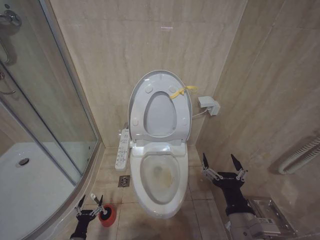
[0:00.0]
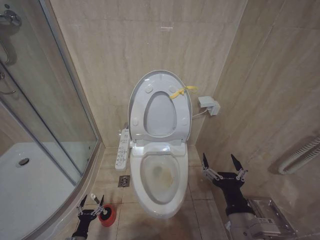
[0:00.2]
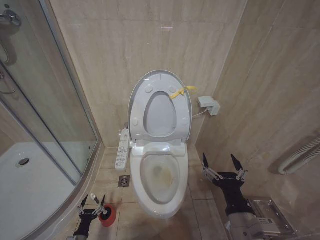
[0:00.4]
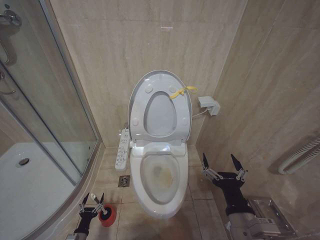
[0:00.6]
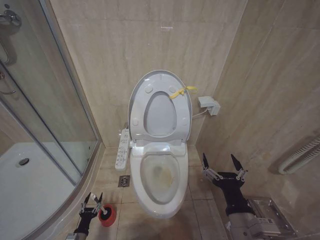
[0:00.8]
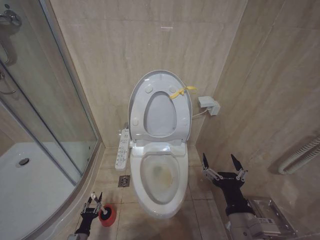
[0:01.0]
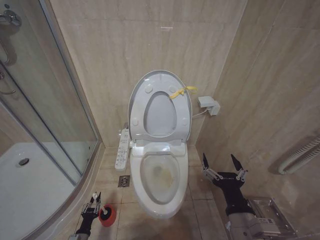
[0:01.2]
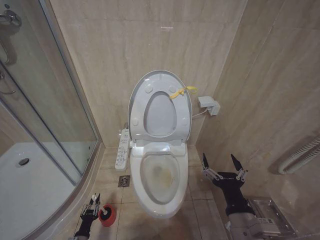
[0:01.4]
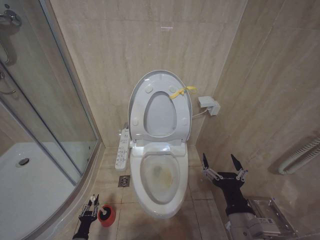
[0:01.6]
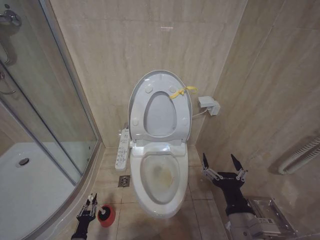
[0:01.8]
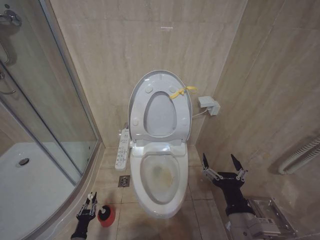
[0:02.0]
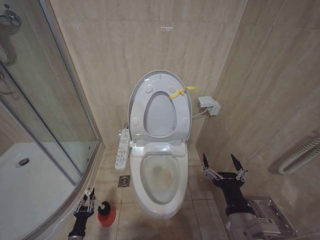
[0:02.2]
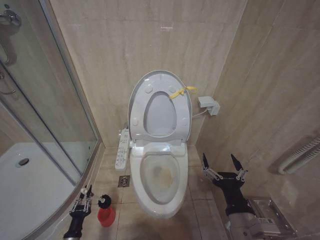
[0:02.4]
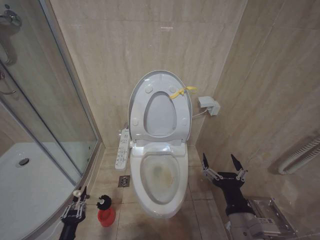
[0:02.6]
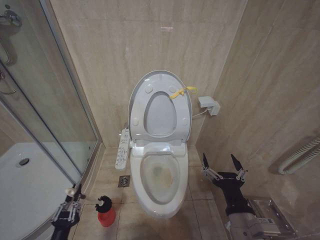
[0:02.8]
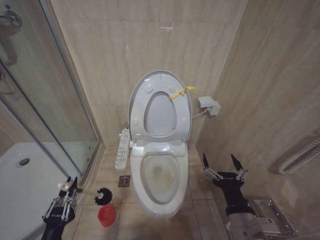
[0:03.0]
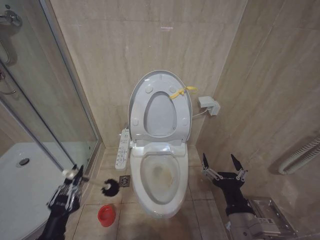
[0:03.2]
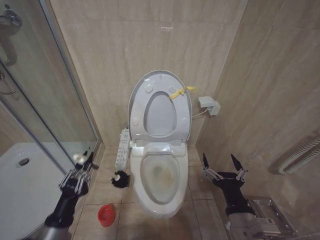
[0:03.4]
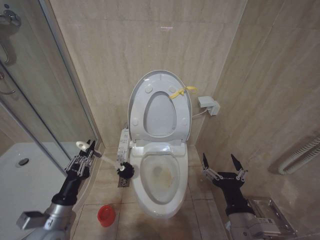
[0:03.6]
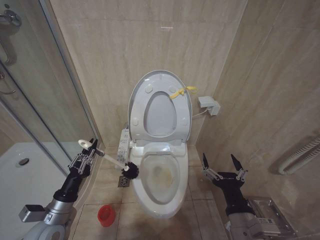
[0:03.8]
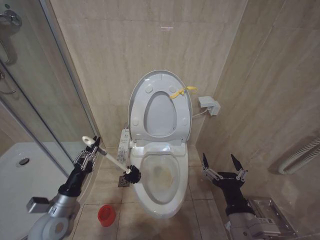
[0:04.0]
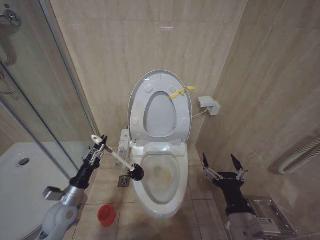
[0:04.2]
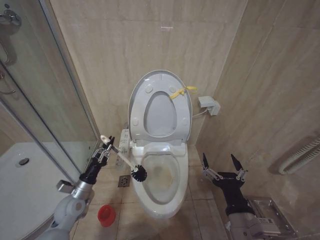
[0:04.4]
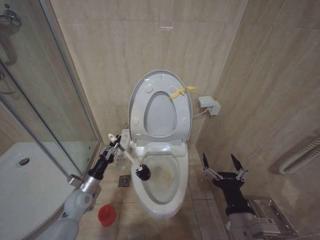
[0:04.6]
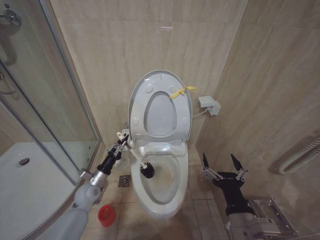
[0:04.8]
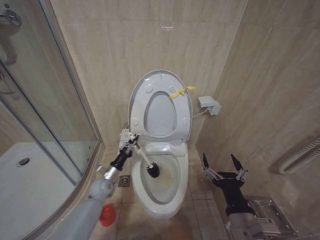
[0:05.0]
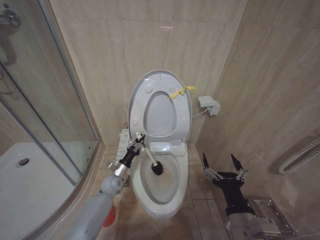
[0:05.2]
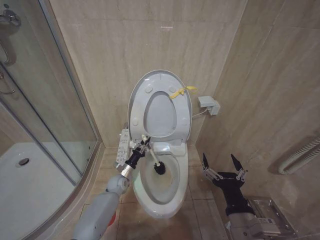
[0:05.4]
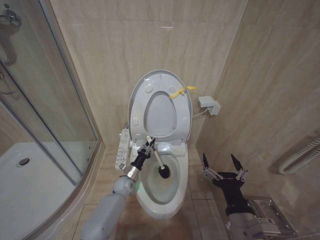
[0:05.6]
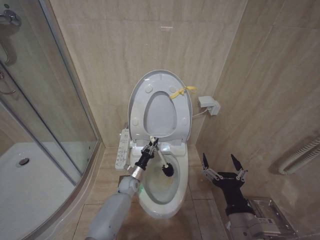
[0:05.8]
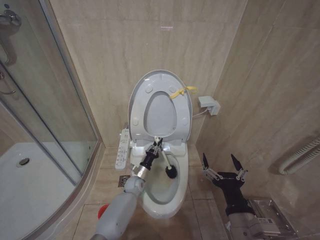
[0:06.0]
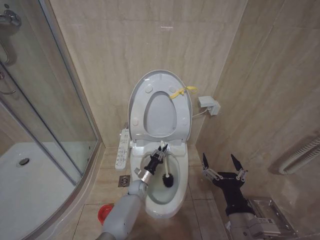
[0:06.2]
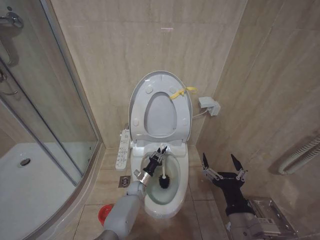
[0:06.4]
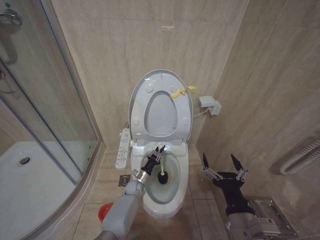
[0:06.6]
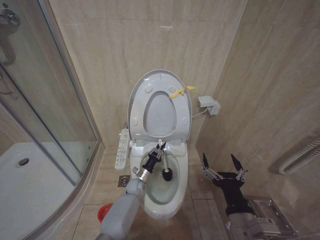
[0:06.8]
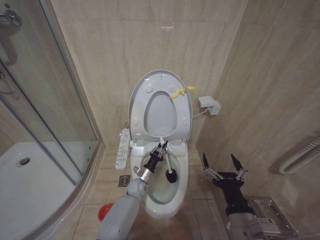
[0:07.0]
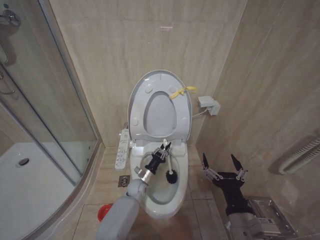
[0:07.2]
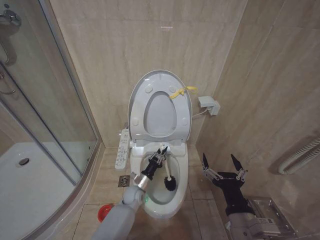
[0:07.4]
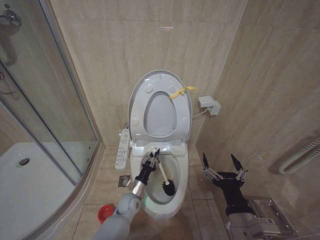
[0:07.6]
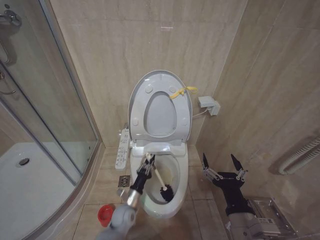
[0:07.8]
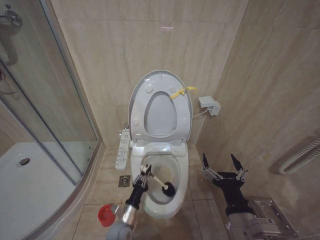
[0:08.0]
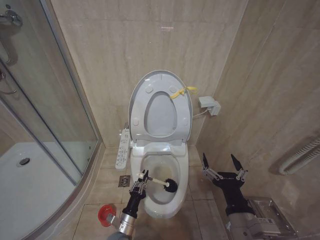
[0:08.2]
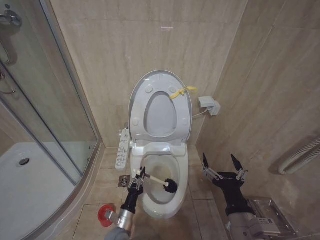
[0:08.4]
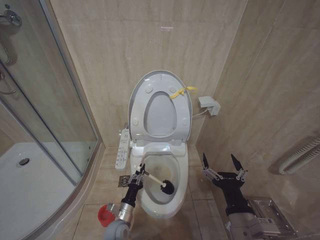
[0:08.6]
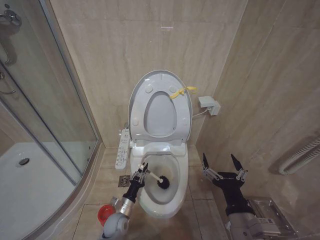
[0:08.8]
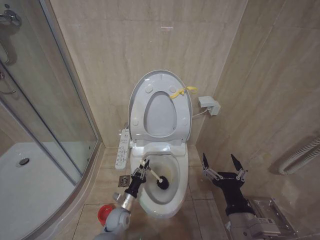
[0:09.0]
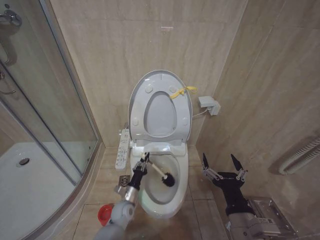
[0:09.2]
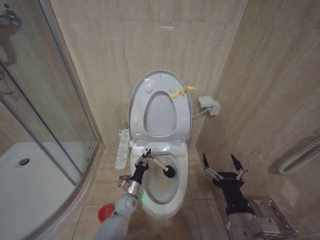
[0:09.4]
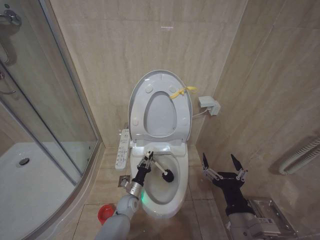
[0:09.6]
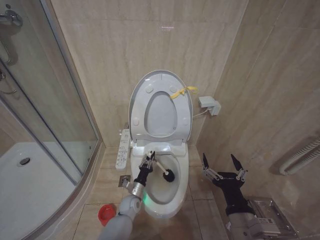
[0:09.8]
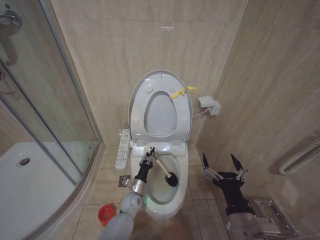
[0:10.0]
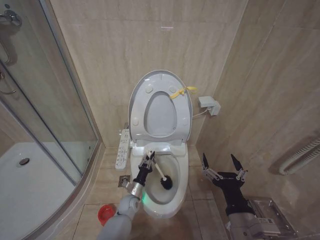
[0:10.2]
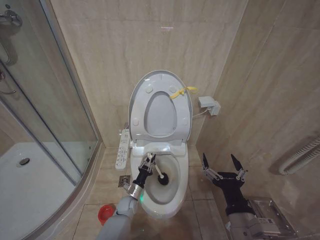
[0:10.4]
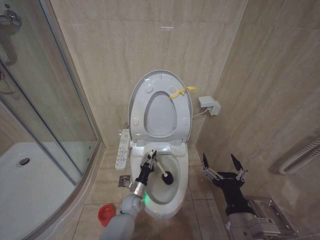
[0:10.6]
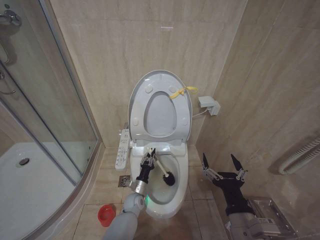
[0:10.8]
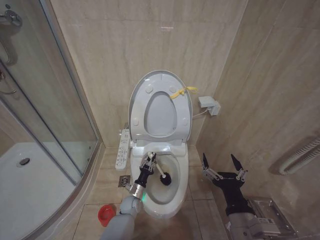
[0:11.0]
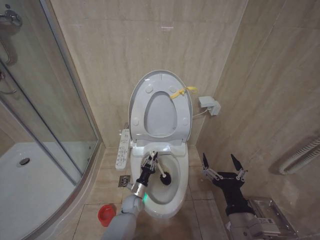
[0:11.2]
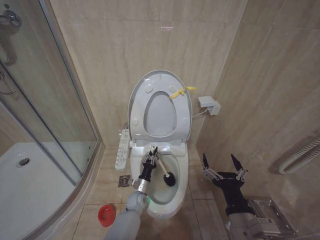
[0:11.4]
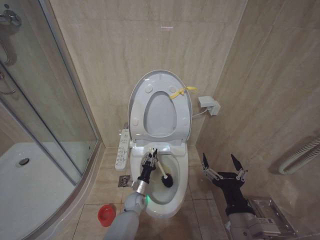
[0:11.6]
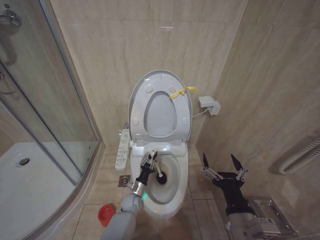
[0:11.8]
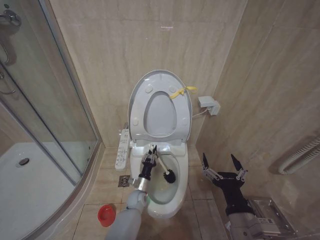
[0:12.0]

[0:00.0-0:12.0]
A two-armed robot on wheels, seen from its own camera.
Task of the whole recording: Open the toilet lid, clean the toilet bowl with a toilet brush, close the toilet lid, and flush.
0:01.6 to 0:03.0: The left gripper is displaced upward by approximately 25 cm.
0:03.0 to 0:04.4: The left gripper is displaced forward by approximately 20 cm.
0:04.4 to 0:06.0: The left gripper shifts some 30 cm to the right, forward and downward.
0:06.0 to 0:07.6: The left gripper heads backward, covering some 10 cm.
0:07.6 to 0:09.0: The left gripper moves backward and to the left, roughly 10 cm.
0:09.0 to 0:10.4: The left gripper shifts some 5 cm forward.
0:10.4 to 0:12.0: The grippers stay close to where they were, moving slightly.

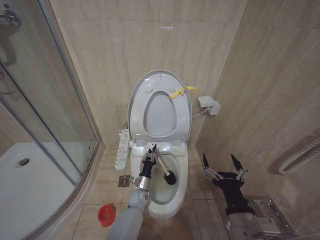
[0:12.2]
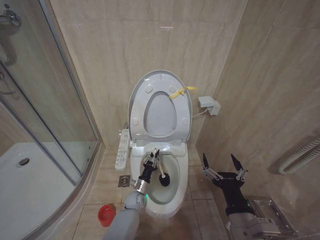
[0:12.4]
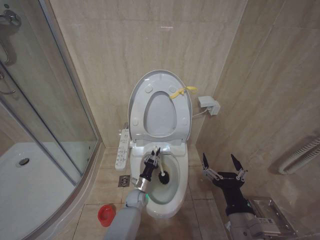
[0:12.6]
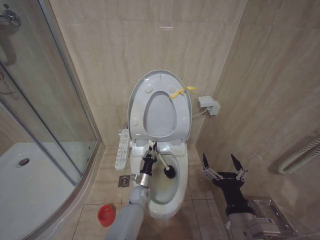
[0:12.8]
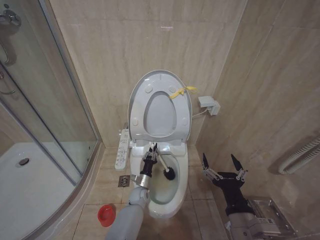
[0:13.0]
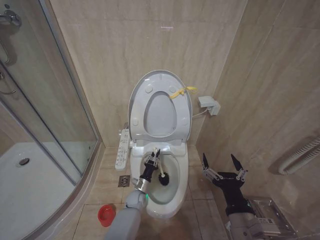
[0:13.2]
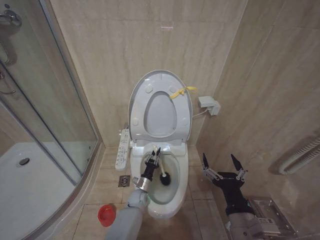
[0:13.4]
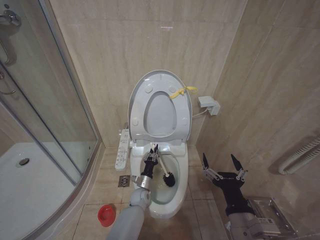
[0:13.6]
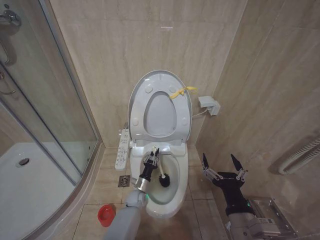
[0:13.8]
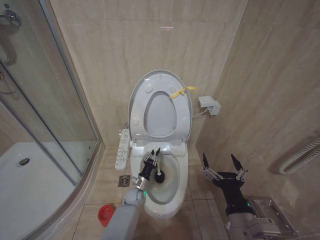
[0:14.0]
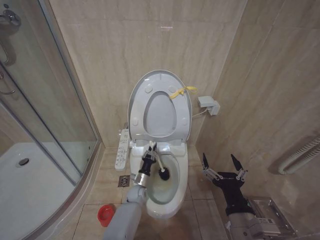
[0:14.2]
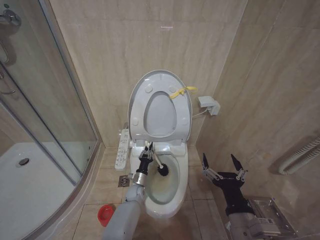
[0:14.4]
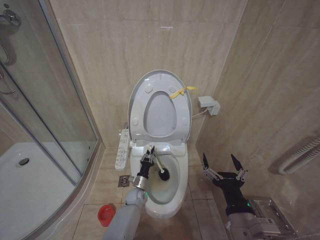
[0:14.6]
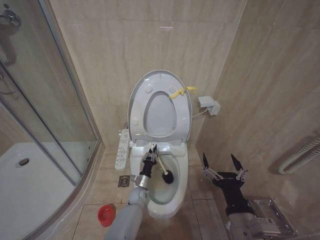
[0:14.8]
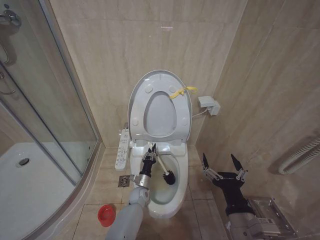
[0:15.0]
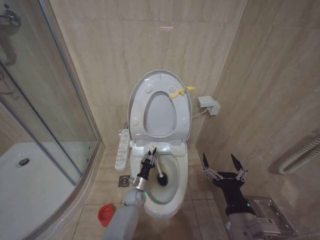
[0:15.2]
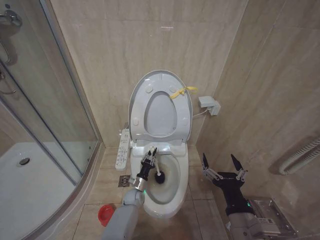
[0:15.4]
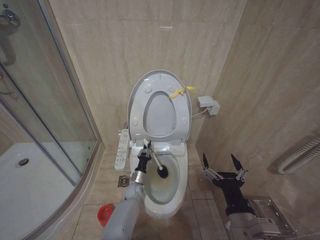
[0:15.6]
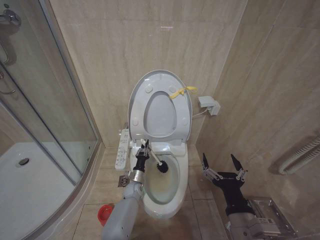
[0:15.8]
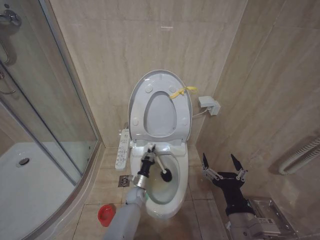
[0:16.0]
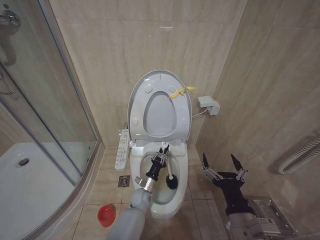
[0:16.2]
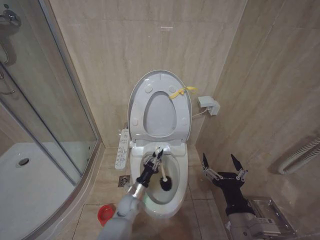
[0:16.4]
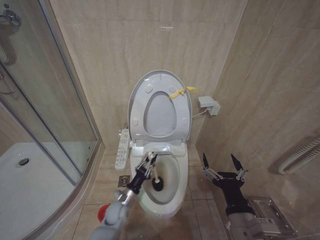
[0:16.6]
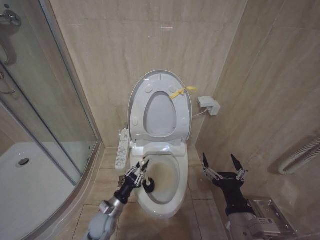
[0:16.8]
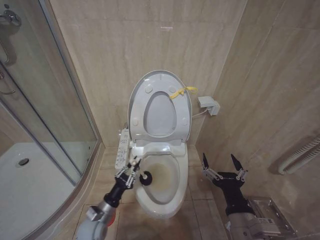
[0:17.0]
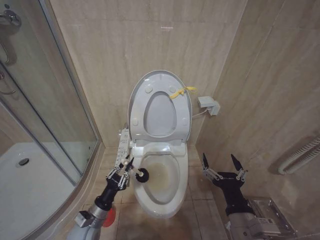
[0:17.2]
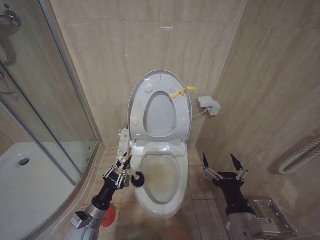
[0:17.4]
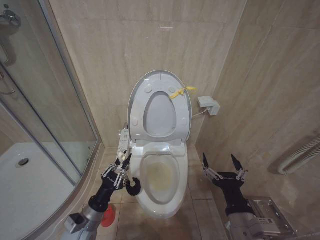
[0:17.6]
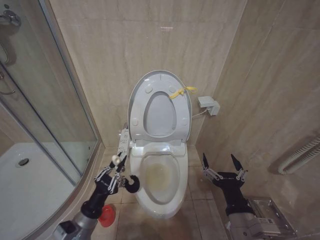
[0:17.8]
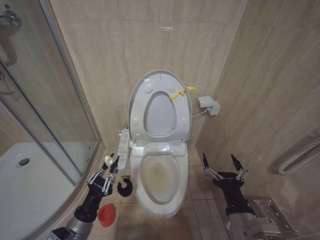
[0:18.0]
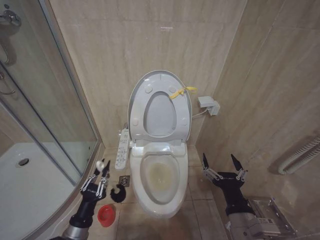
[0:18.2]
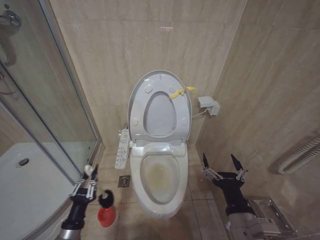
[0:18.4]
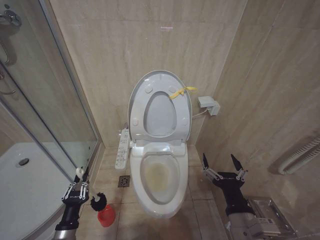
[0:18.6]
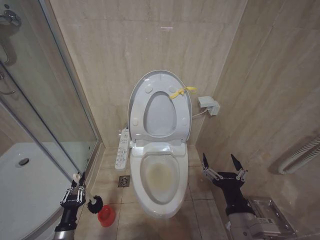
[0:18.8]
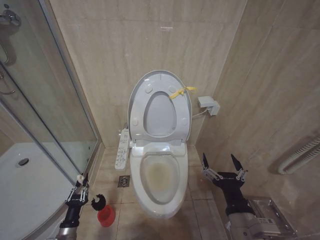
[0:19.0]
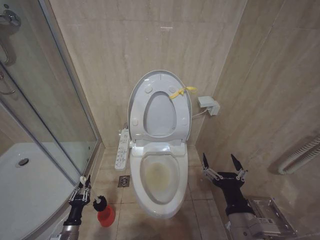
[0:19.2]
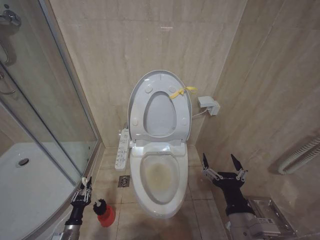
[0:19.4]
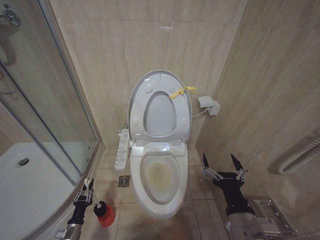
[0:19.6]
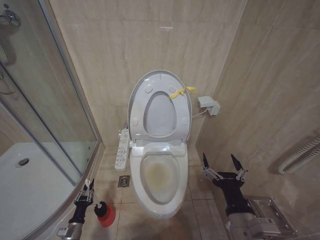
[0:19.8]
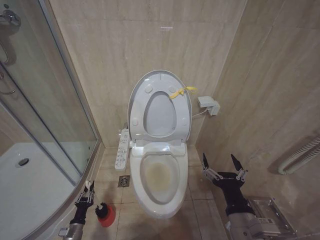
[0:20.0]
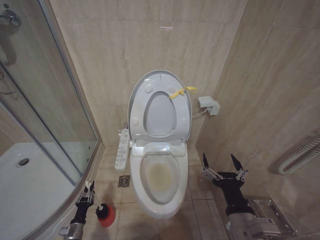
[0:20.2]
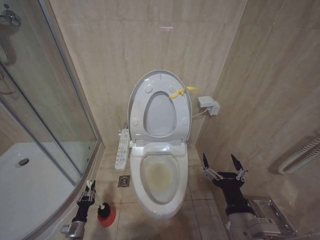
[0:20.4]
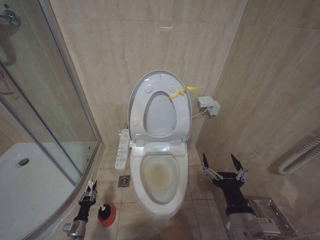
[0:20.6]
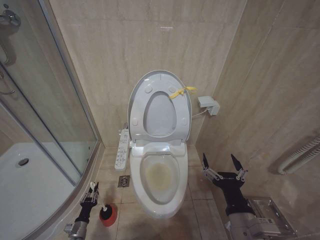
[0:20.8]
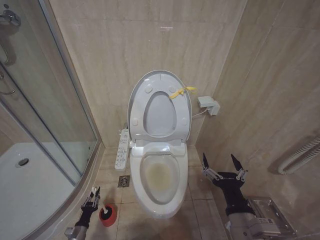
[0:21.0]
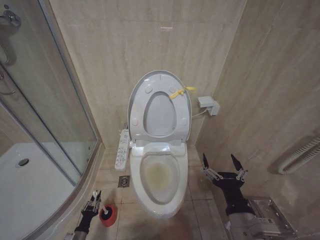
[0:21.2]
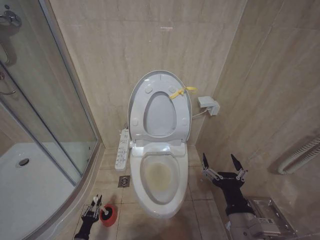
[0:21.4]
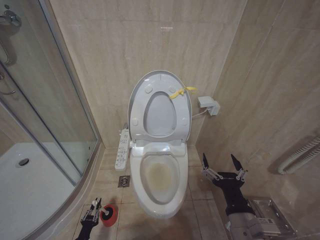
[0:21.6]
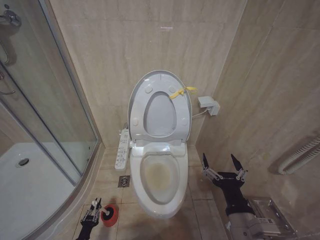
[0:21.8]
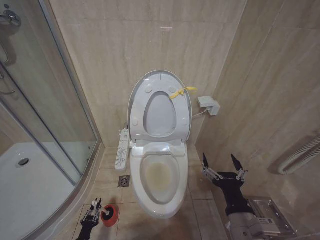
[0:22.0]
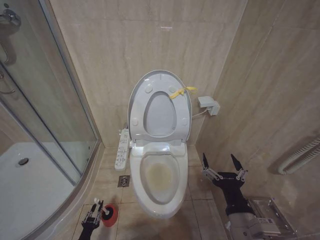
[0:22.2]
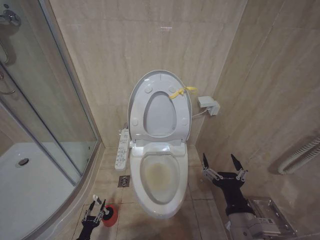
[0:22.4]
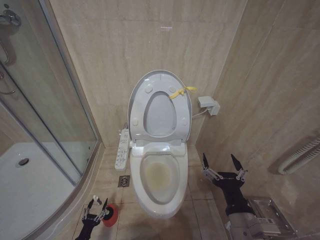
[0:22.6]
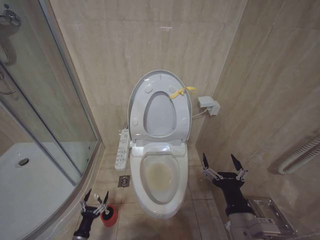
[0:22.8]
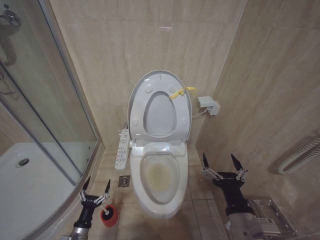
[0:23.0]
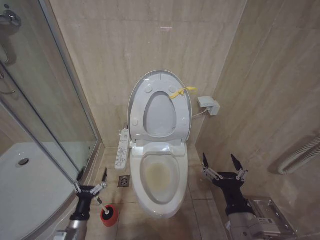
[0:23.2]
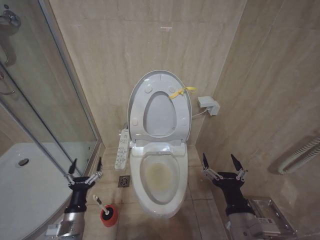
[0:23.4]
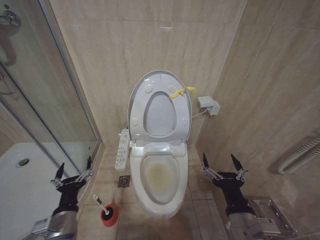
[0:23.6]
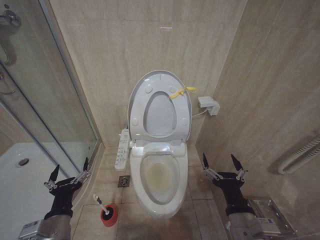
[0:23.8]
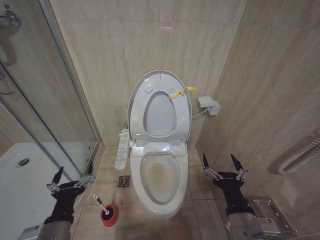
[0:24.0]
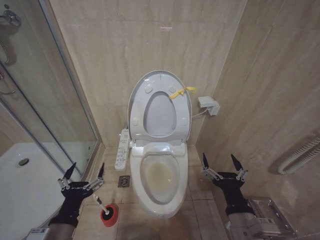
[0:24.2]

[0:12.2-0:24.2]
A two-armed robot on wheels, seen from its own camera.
Task of the whole recording: Open the toilet lid, clean the toilet bowl with a toilet brush, close the toilet lid, and flush.
0:12.2 to 0:13.8: The grippers make only small movements.
0:15.2 to 0:16.6: The left gripper travels backward, to the left and upward by approximately 10 cm.
0:16.6 to 0:18.2: The left gripper moves backward, to the left and upward, some 25 cm.
0:18.2 to 0:19.8: The left gripper heads downward and to the left, covering about 25 cm.
0:19.8 to 0:21.2: The left gripper goes roughly 5 cm downward.
0:21.2 to 0:22.6: The left gripper is displaced backward by roughly 5 cm.
0:22.6 to 0:24.2: The left gripper moves upward, roughly 40 cm, and opens.
